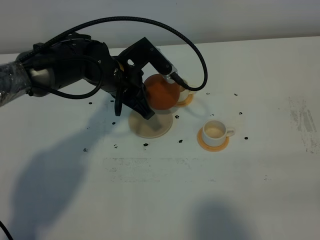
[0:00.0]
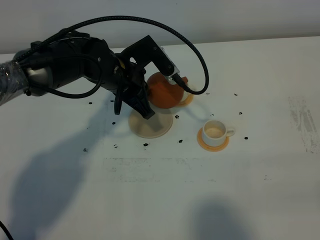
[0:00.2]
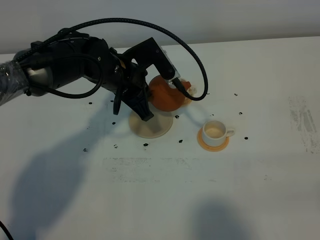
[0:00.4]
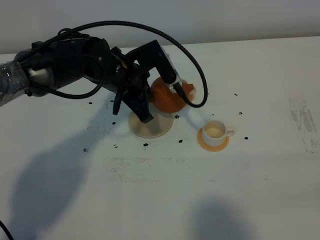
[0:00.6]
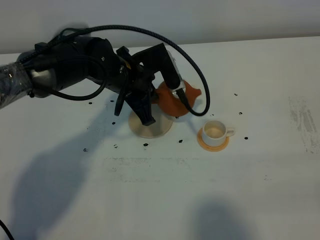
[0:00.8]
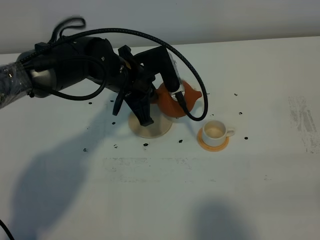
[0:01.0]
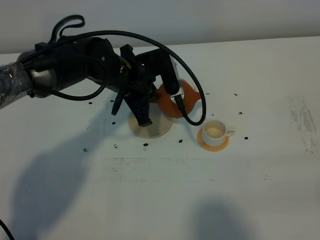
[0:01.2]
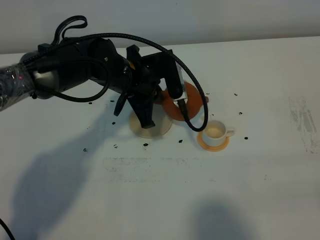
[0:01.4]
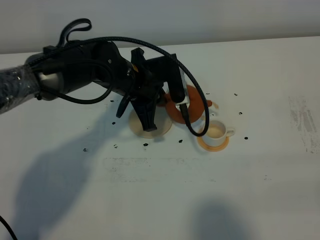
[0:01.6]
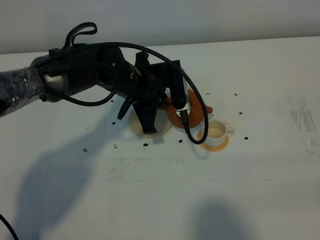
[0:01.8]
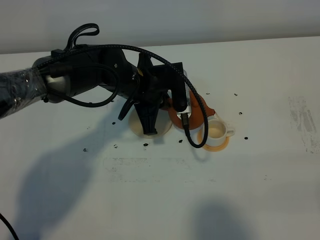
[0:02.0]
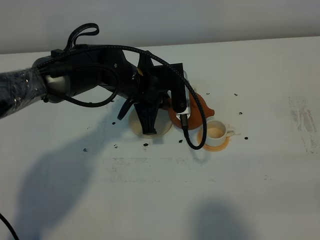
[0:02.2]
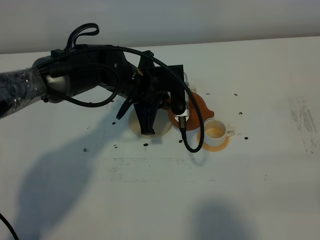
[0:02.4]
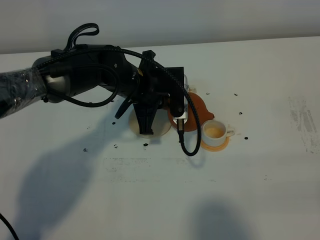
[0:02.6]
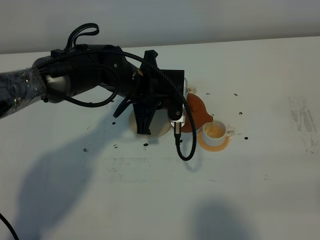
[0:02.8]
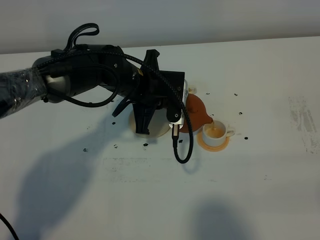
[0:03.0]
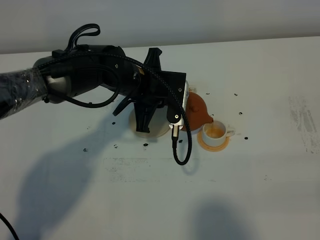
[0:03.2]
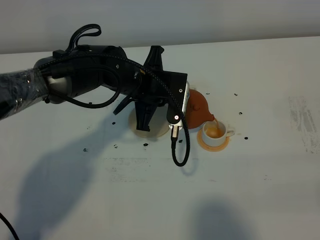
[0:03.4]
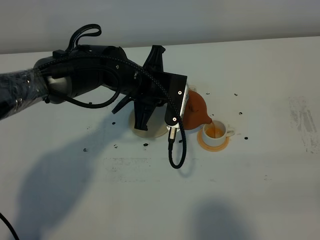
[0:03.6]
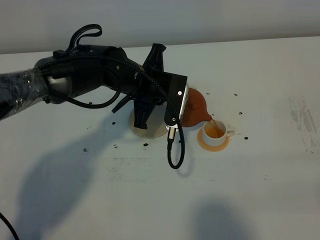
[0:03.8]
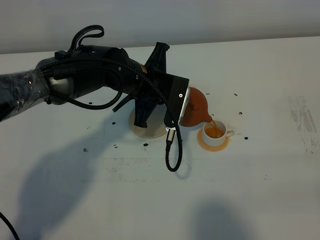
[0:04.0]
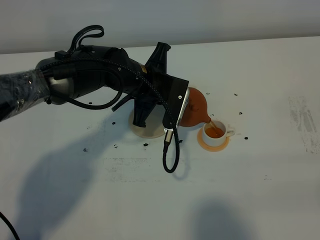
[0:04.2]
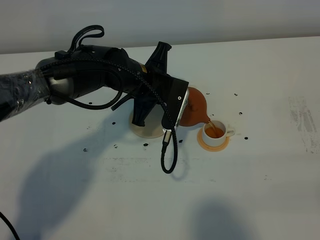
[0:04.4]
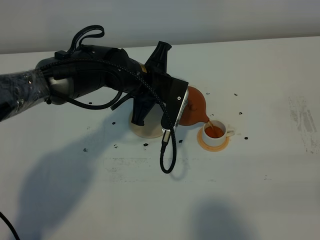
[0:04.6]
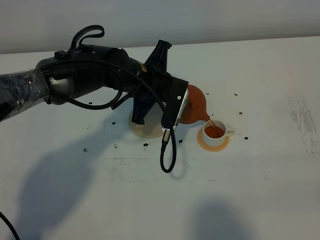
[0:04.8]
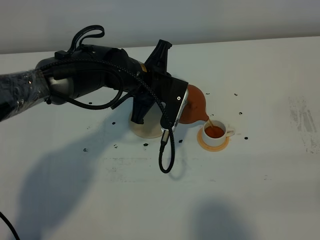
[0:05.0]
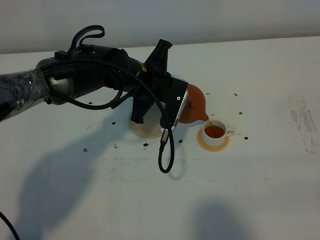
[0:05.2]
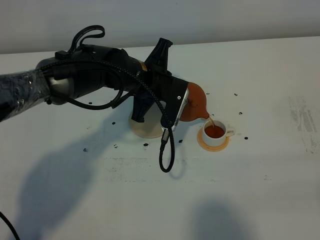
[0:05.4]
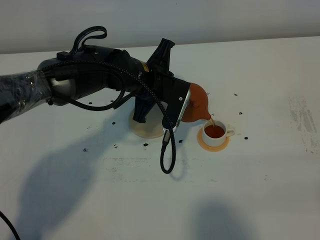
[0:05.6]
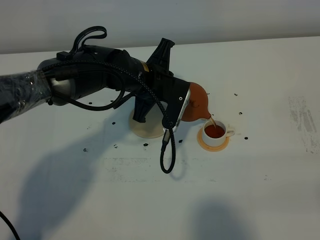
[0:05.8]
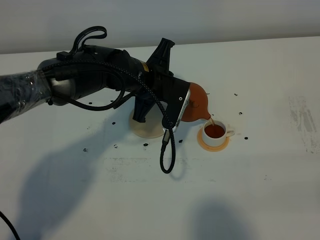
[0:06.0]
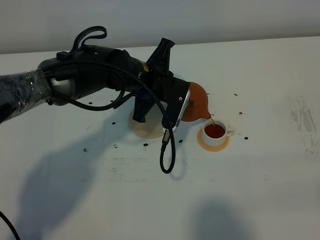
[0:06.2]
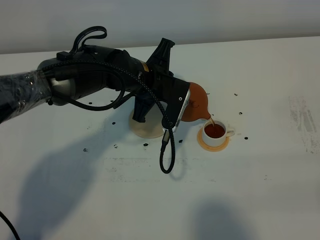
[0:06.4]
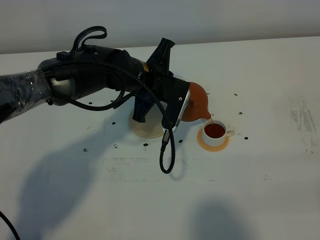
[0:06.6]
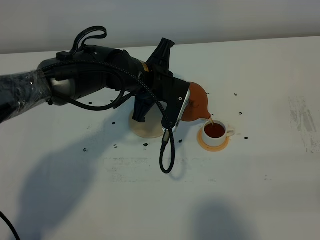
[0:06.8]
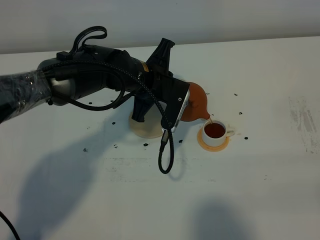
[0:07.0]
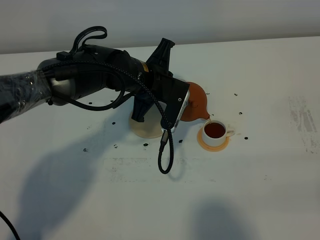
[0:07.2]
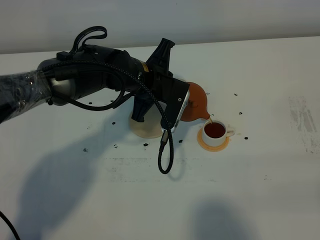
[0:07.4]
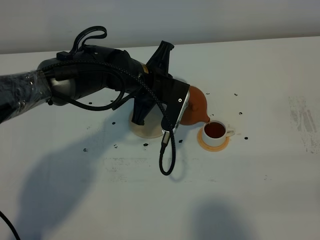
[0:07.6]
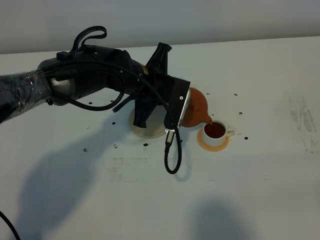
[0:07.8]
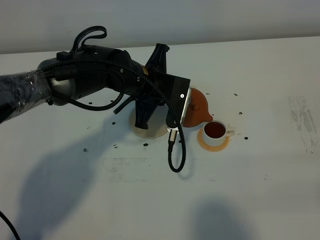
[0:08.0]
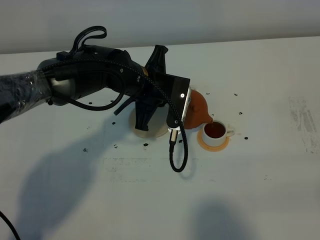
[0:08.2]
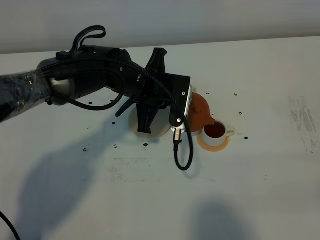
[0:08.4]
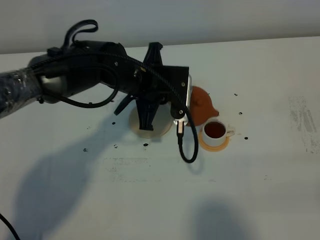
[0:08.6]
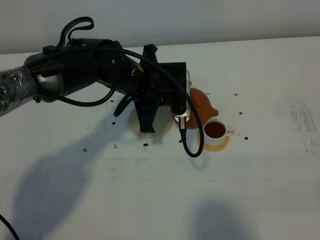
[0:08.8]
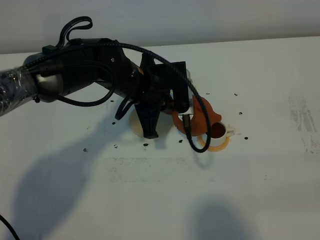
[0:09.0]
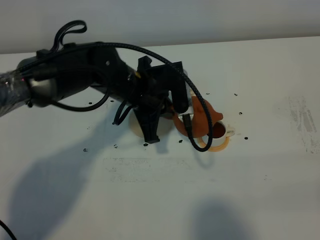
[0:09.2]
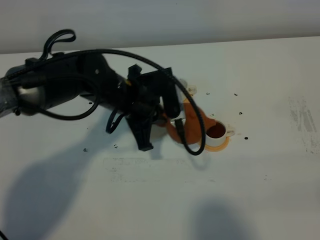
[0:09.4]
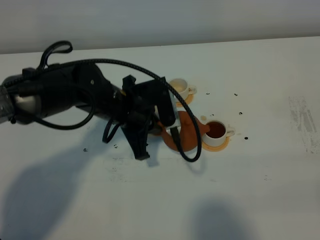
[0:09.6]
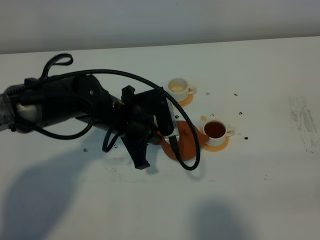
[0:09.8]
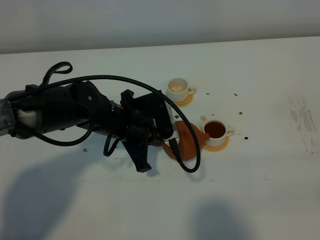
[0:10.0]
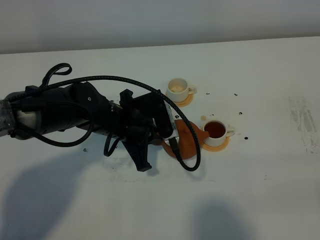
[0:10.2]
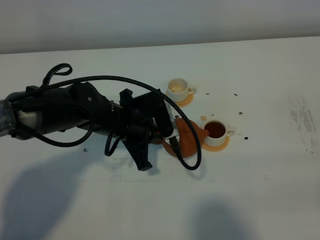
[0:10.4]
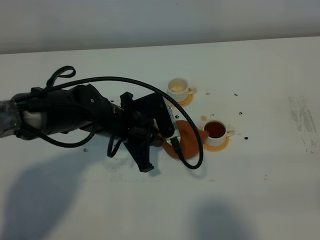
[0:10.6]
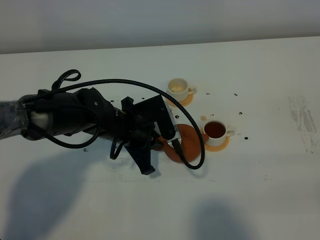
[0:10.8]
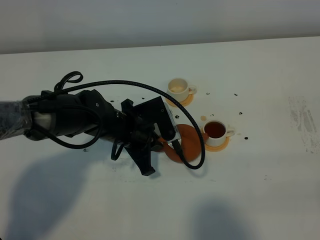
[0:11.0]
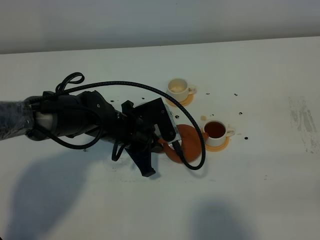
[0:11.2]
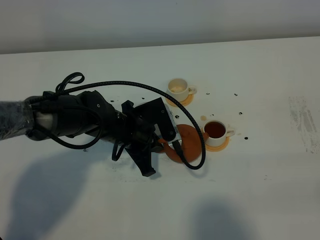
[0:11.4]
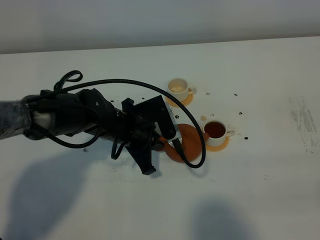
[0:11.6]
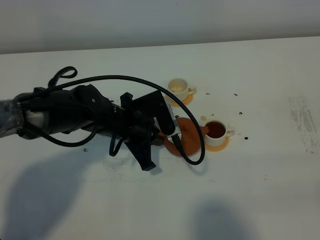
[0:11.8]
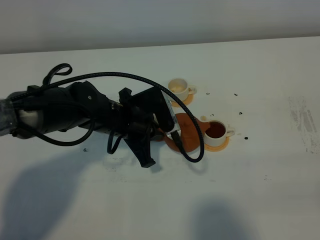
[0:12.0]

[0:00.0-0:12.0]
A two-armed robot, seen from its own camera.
Task of the whole recording: grasp the brown teapot and pour the tea into the two white teacups one by one, put the brown teapot back in its original place.
0:01.6 to 0:03.0: There are only small adjustments of the grippers.
0:03.0 to 0:04.4: The grippers make only small movements.
0:04.4 to 0:06.0: The two grippers keep their place.
0:06.0 to 0:07.6: Both grippers stay about where they are.
0:09.0 to 0:10.4: The left gripper is displaced downward by roughly 5 cm.
0:10.4 to 0:12.0: The grippers stay close to where they were, moving slightly.

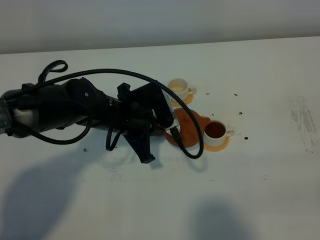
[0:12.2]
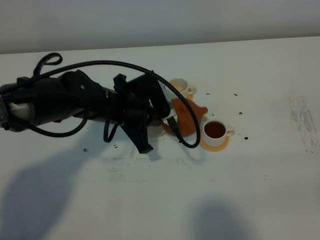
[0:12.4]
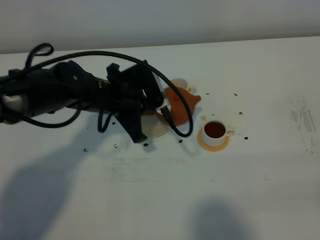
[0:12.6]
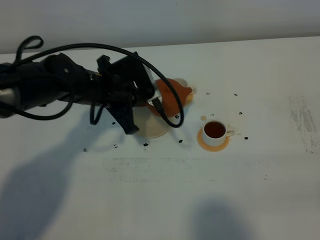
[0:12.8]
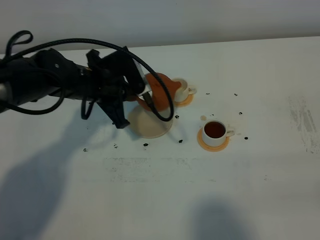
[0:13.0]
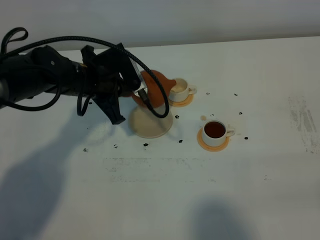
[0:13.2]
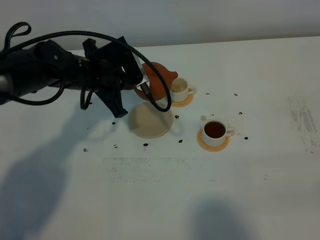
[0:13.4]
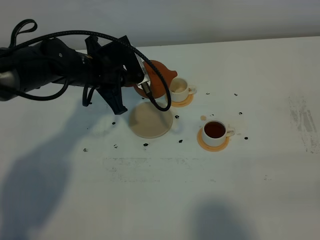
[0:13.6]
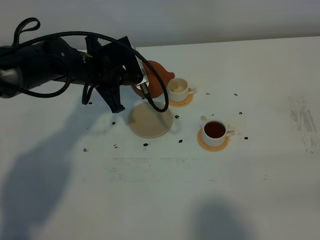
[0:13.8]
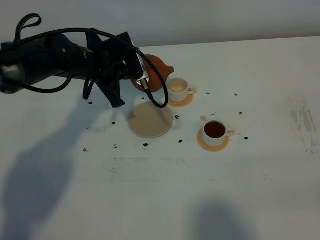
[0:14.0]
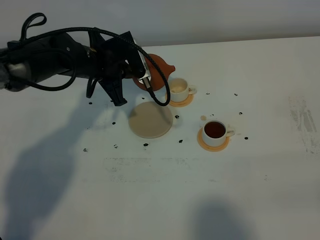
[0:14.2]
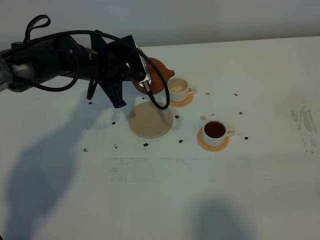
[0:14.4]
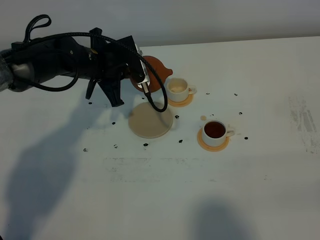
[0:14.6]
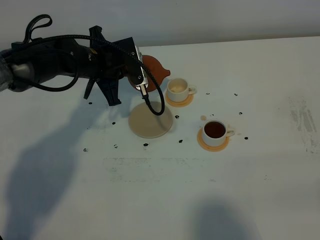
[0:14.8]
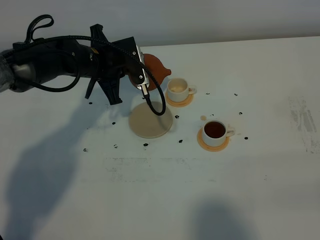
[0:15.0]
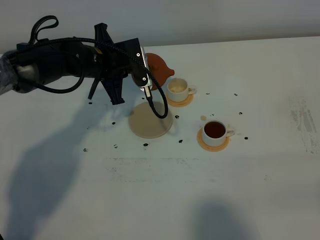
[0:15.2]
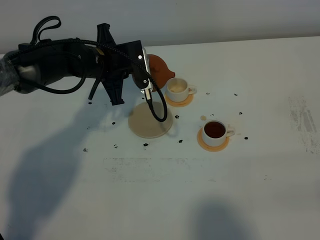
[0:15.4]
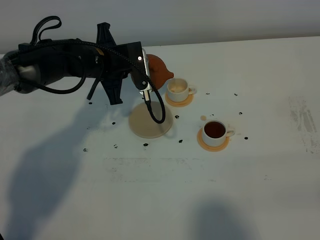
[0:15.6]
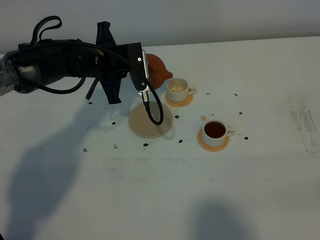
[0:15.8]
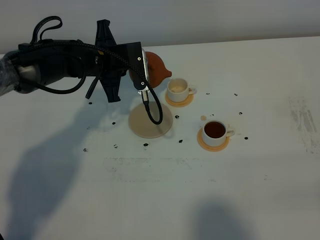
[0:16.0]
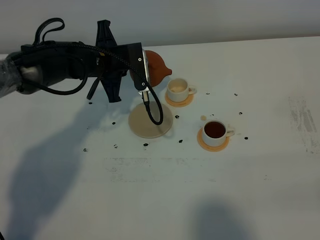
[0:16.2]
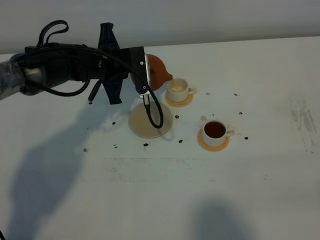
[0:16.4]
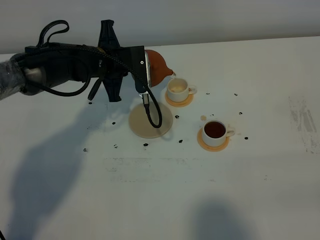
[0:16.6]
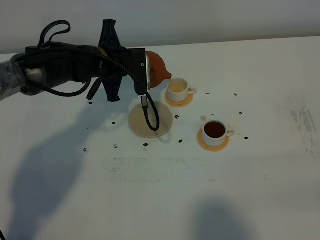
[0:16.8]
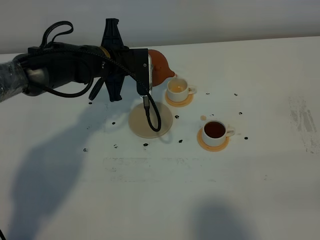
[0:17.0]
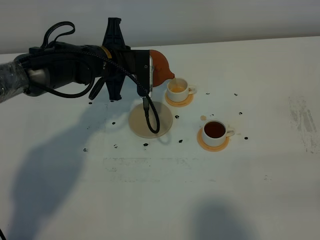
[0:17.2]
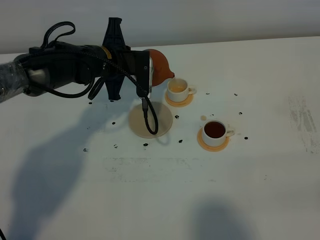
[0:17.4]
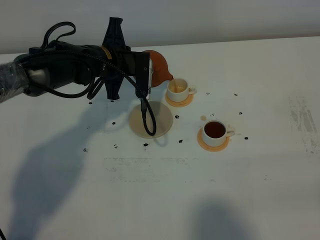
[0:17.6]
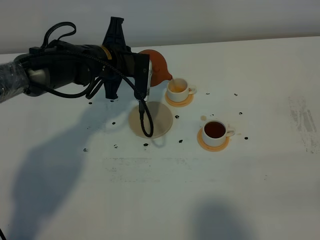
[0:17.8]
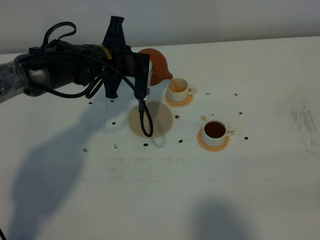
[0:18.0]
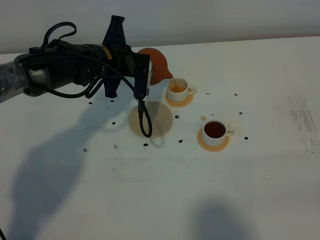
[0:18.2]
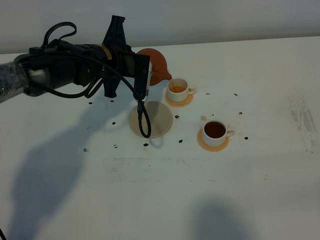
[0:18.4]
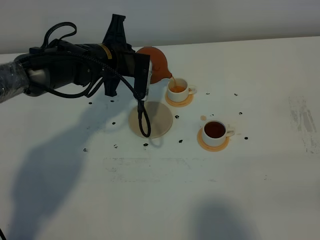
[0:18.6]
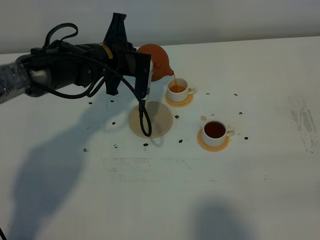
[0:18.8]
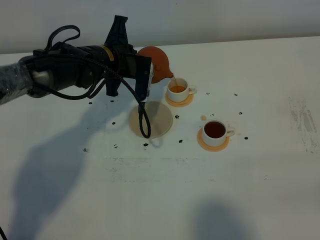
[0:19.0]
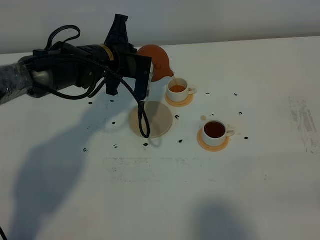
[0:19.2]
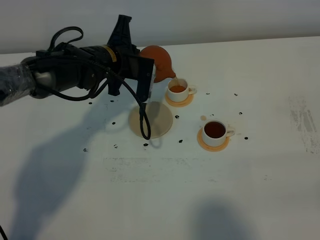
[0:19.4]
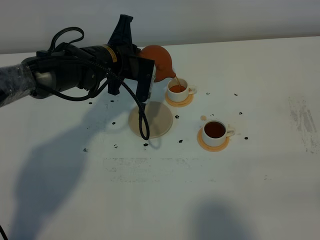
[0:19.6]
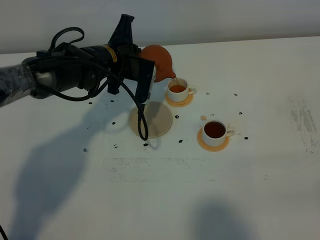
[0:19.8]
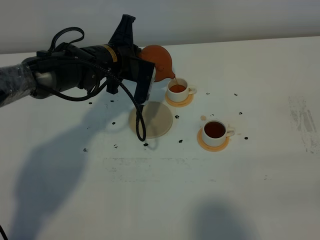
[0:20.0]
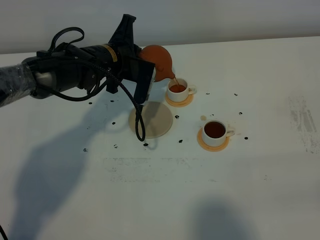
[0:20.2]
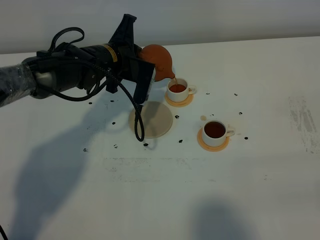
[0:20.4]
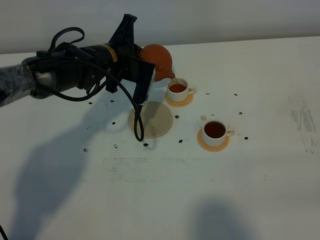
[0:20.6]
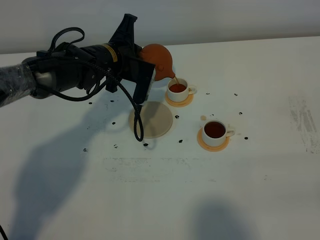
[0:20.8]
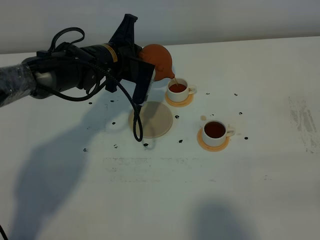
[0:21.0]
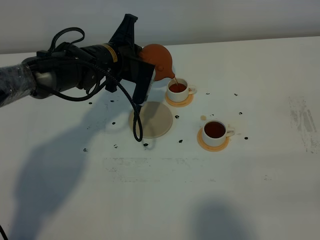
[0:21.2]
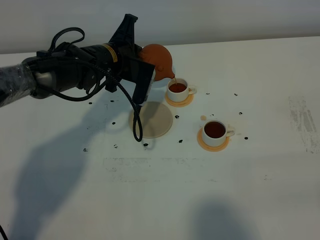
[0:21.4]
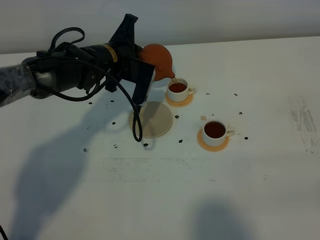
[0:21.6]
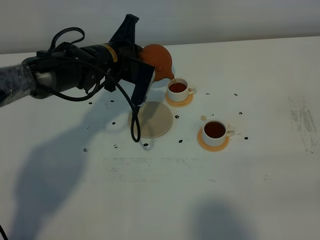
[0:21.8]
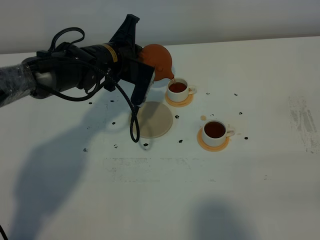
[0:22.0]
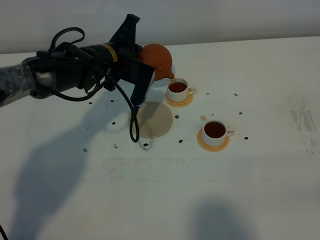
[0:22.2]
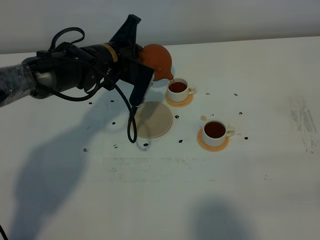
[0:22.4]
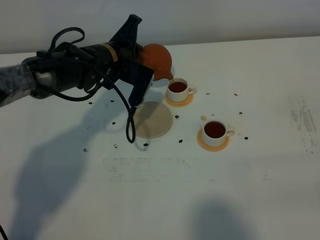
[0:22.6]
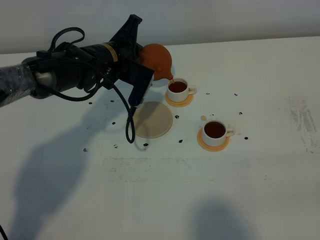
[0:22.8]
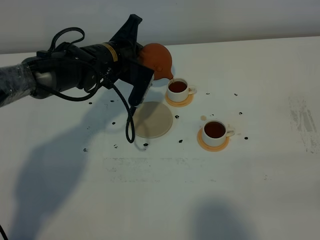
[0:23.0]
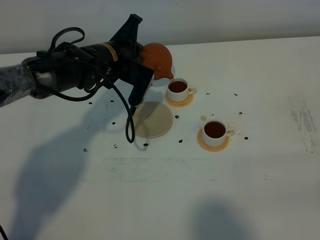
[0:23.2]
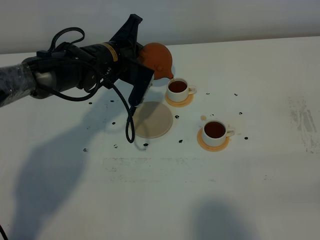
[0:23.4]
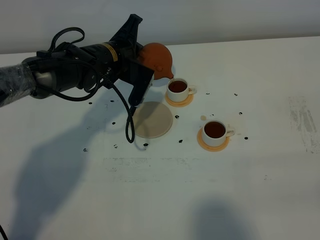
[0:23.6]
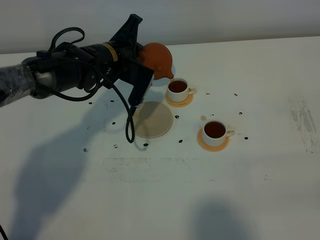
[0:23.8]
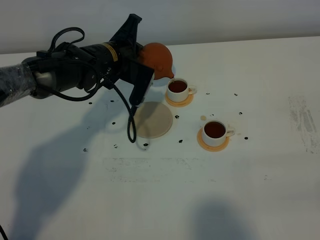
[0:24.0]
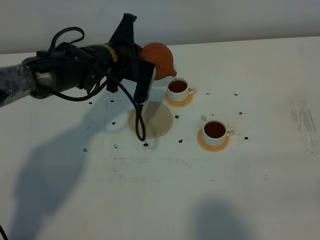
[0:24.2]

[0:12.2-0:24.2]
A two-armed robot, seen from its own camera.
Task of the whole recording: grasp the brown teapot and pour the tea into the two white teacups one by one, put the brown teapot back in its original place.
0:12.2 to 0:13.8: The left gripper shifts approximately 10 cm forward and to the left.
0:13.8 to 0:15.2: The grippers move only a little.
0:15.2 to 0:16.6: The grippers move only a little.
0:16.6 to 0:18.2: The grippers move only a little.
0:18.2 to 0:21.2: There are only small adjustments of the grippers.
0:21.2 to 0:24.2: The grippers move only a little.
